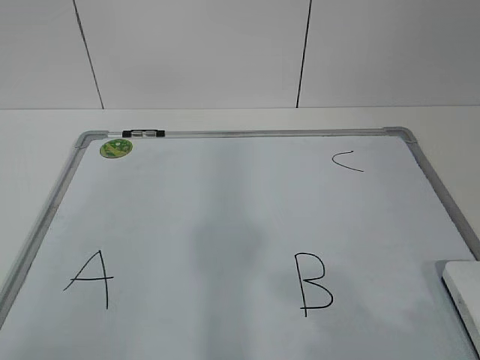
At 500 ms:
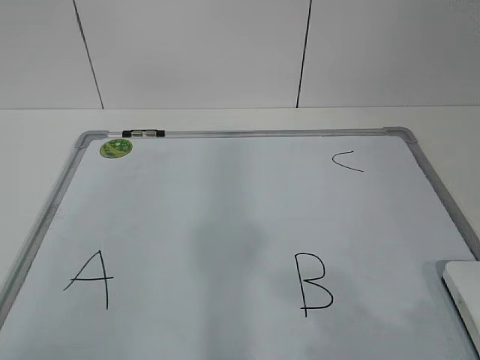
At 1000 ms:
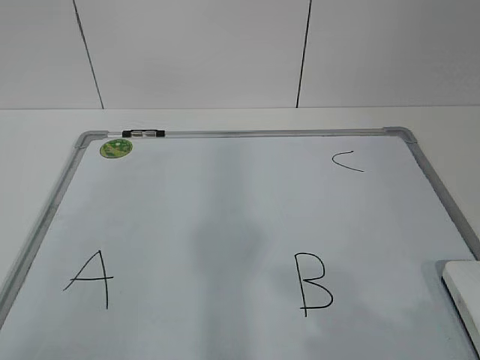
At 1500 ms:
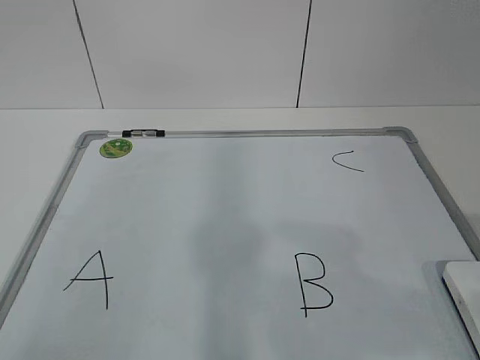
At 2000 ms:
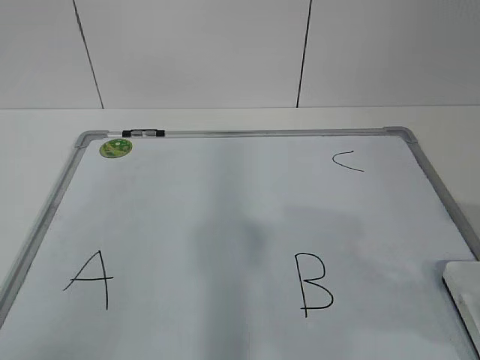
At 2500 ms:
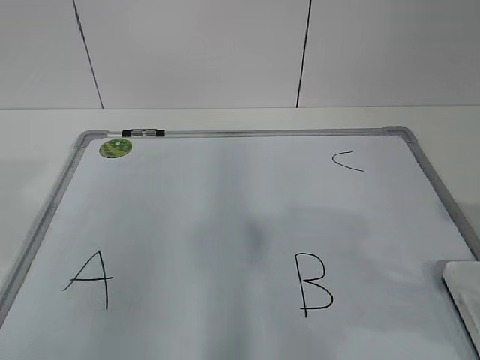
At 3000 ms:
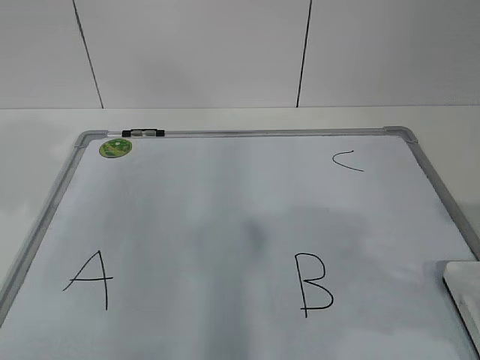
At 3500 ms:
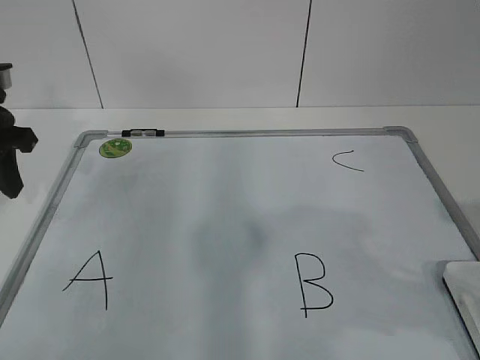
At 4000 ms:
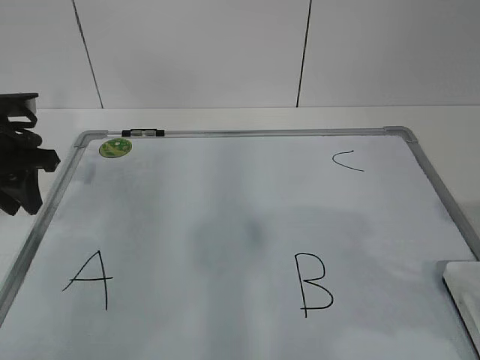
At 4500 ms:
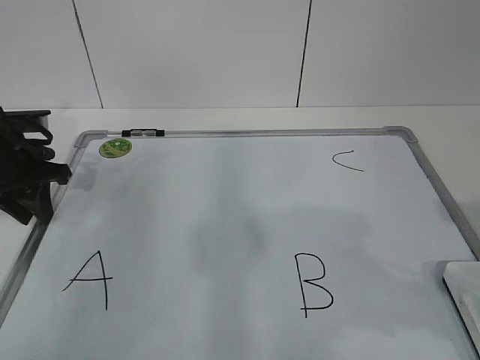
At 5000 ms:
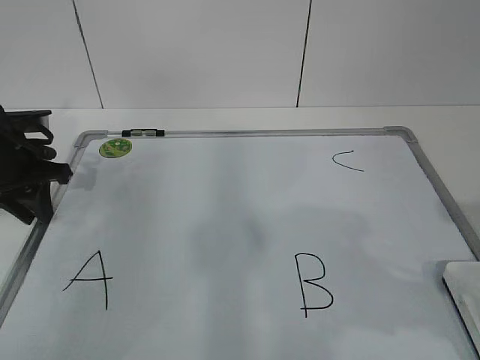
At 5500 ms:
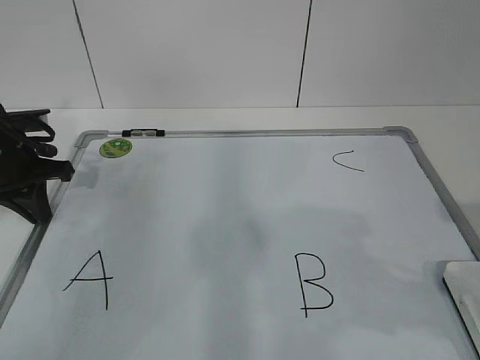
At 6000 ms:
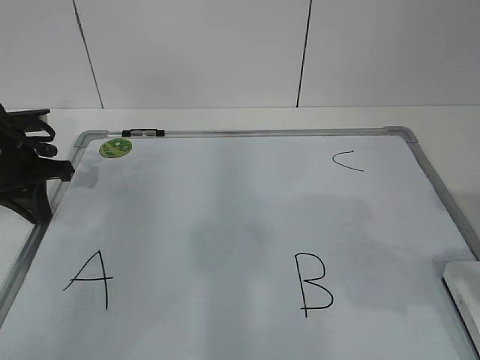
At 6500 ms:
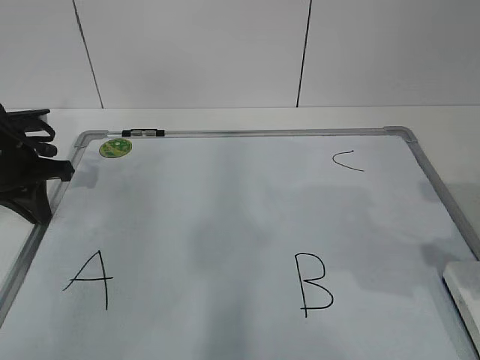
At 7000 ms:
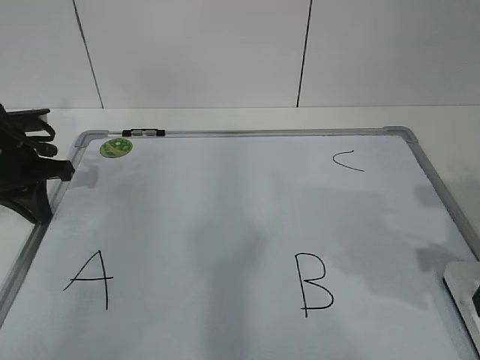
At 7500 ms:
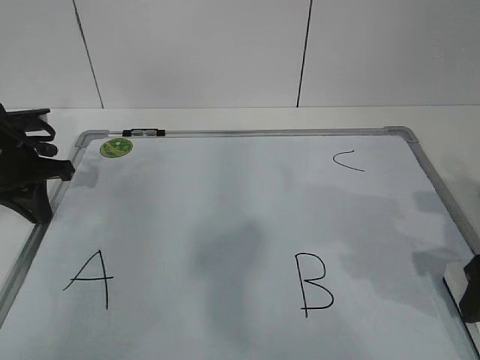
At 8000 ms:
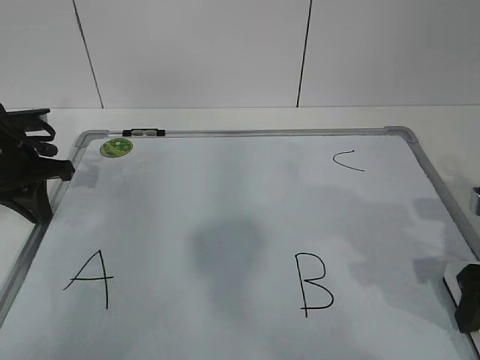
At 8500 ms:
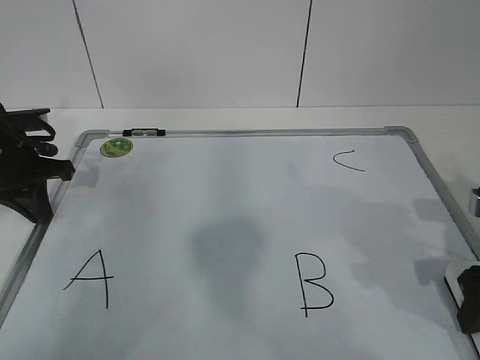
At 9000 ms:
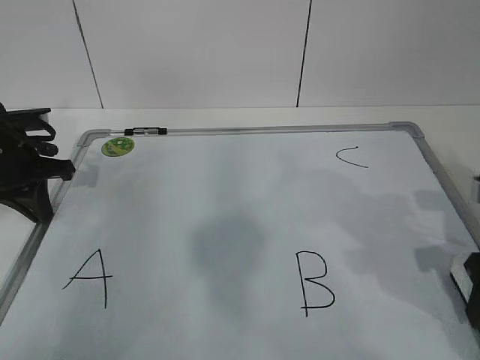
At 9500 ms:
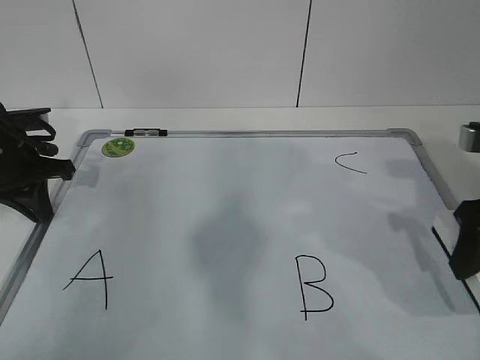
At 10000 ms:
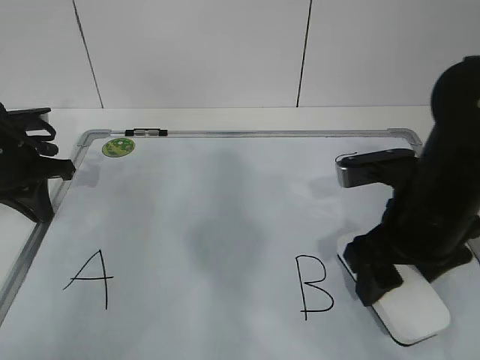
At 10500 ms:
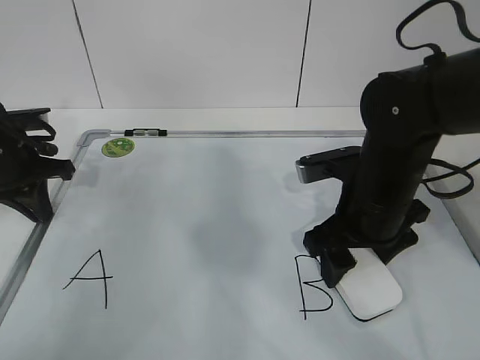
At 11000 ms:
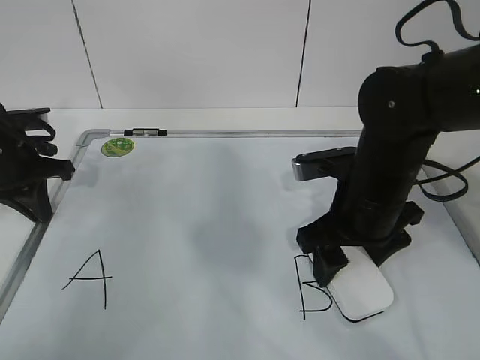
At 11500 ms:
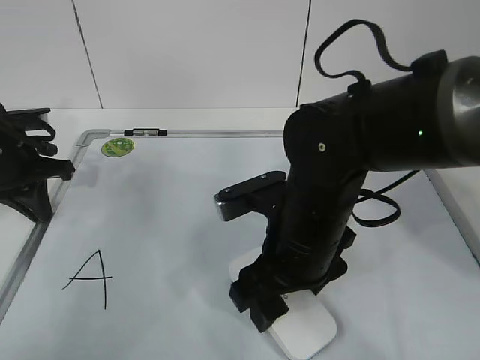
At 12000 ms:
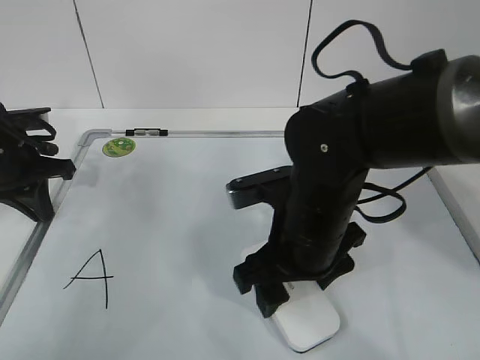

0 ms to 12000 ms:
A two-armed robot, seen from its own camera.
Task of the whole recording: pick up the eraser on the blackboard and erase the letter "B".
Step, 0 ms to 4000 ms: Hold the drawing board steady with your left hand.
2000 ms to 4000 ms: The left gripper shifts roughly 35 cm forward.
4000 ms to 6000 ms: The left gripper closes its fingers.
6000 ms to 8000 ms: The right gripper moves downward and forward, approximately 10 cm.
8000 ms to 10000 ms: The right gripper is displaced to the left by approximately 10 cm.
10000 ms to 12000 ms: The right gripper shifts about 10 cm to the left.

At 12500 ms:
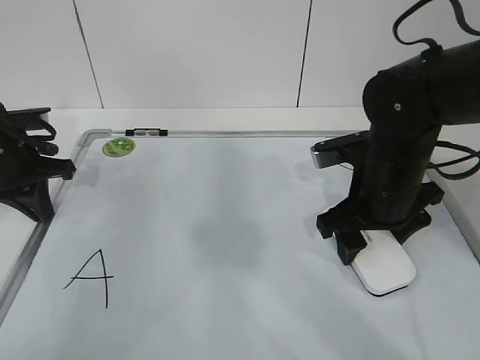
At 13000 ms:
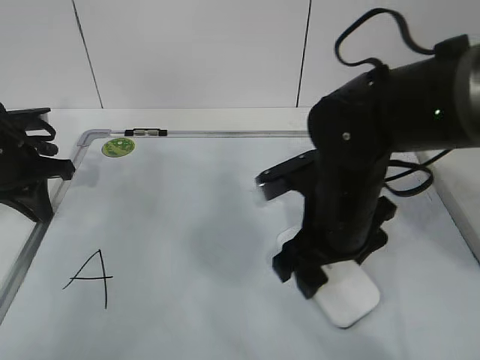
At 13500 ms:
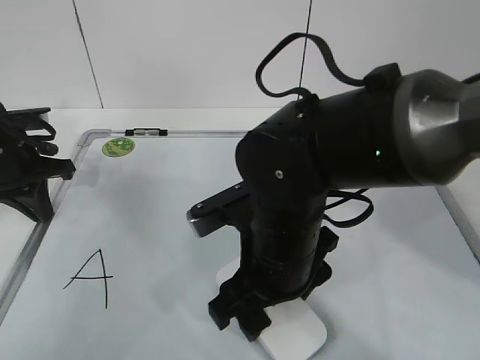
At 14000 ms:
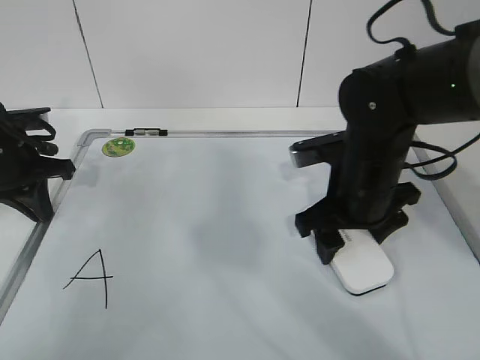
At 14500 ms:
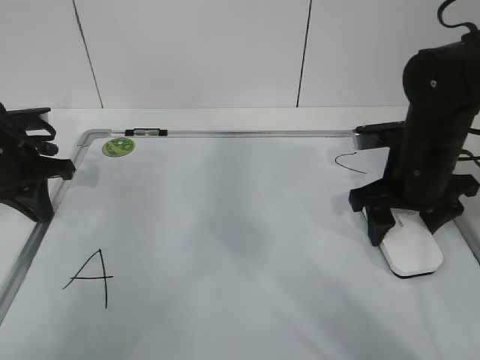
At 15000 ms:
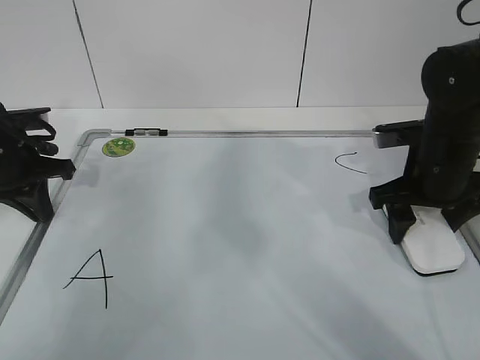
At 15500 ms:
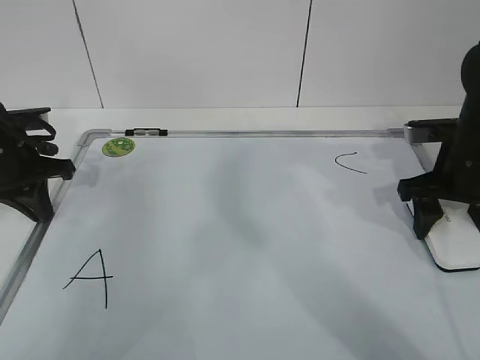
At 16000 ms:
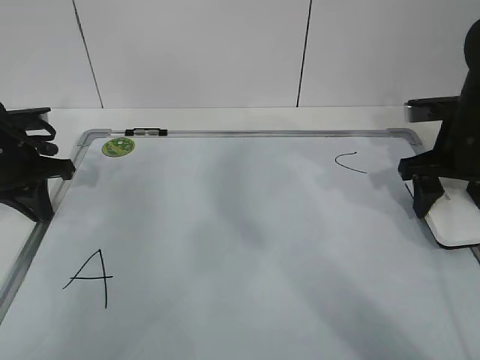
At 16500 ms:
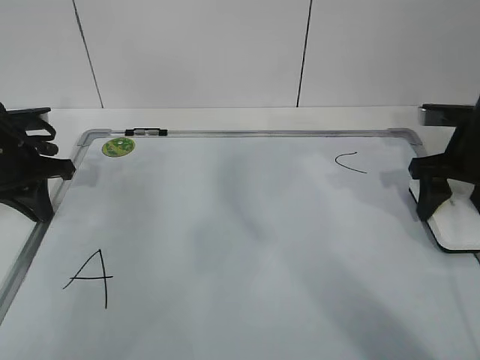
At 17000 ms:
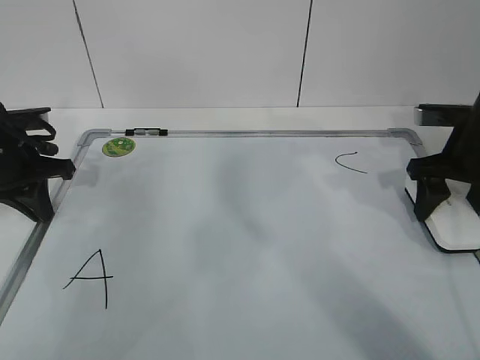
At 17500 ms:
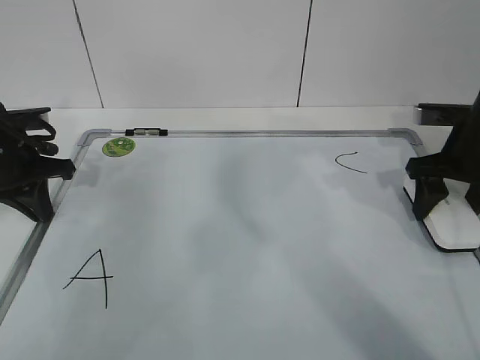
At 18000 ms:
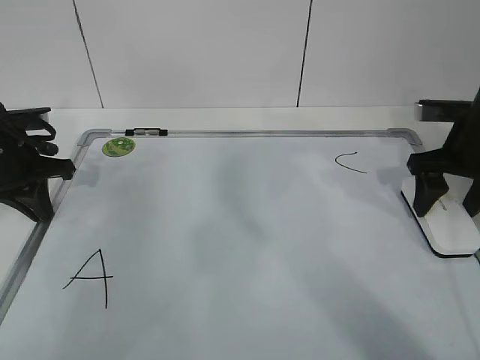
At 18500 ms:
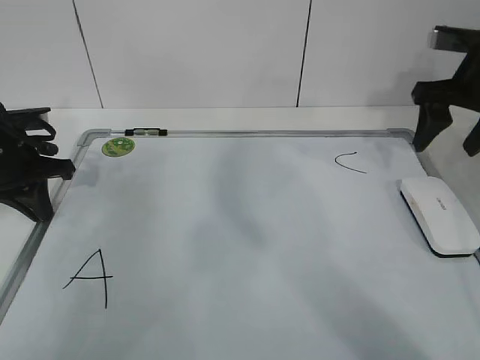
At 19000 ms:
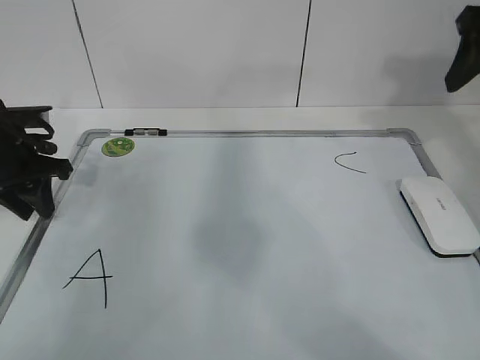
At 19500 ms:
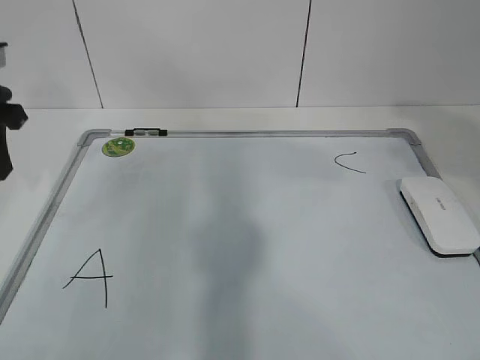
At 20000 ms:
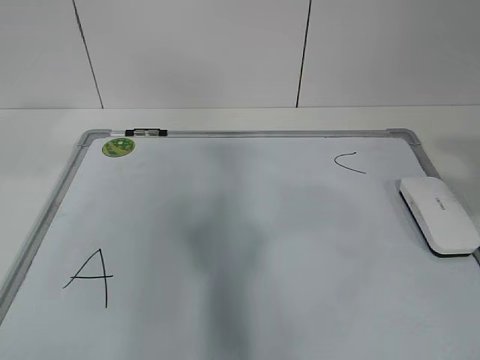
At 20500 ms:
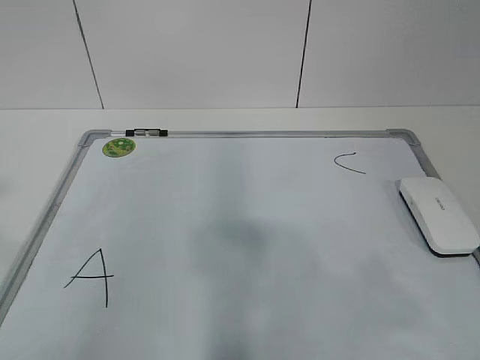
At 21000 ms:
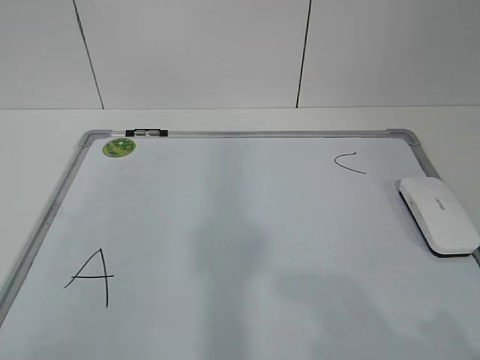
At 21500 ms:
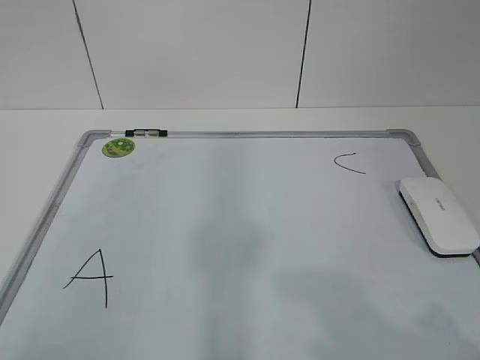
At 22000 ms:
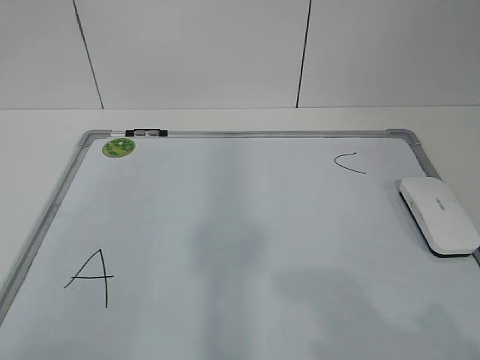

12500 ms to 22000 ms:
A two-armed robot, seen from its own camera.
Task of the whole recording: pick up the eraser on the blackboard and erase the letter "B".
Step, 13000 ms to 14500 ms: Put down the eraser with your right hand.
12500 ms to 14500 ms: The right gripper reaches roughly 10 cm to the left, then returns.
14500 ms to 16500 ms: The right gripper shifts approximately 10 cm to the right.
16500 ms to 18000 ms: Neither gripper changes place.
18000 ms to 20000 ms: The right gripper moves backward and upward, approximately 35 cm, while the left gripper shifts some 25 cm upward and backward, and opens its fingers.
20000 ms to 22000 ms: The right gripper travels downward and backward by some 15 cm; the left gripper travels backward by roughly 25 cm.

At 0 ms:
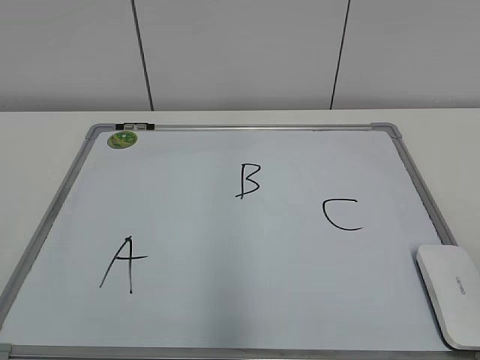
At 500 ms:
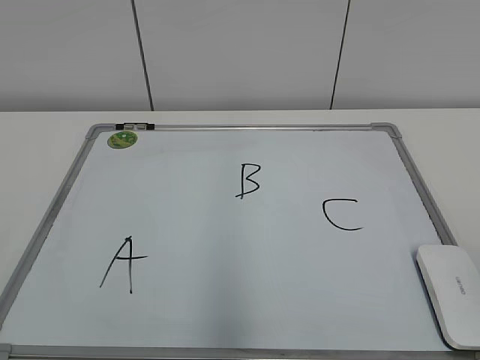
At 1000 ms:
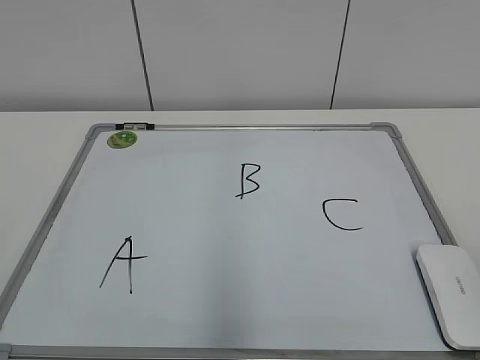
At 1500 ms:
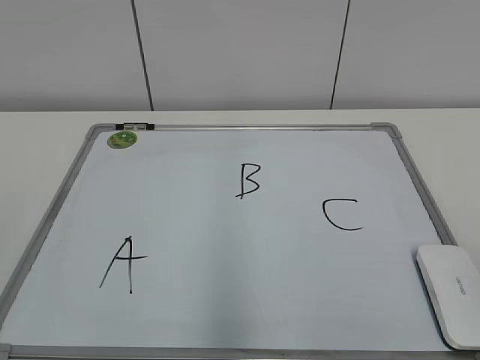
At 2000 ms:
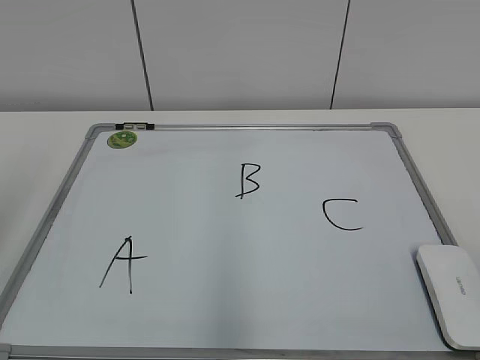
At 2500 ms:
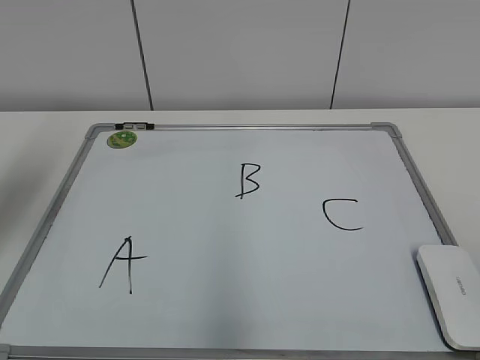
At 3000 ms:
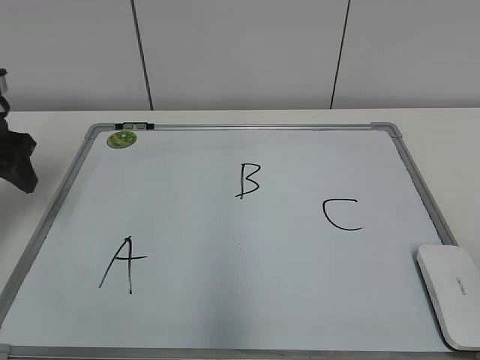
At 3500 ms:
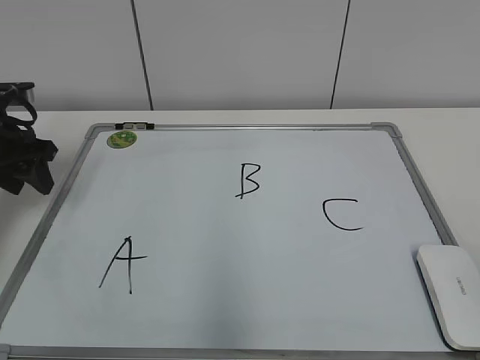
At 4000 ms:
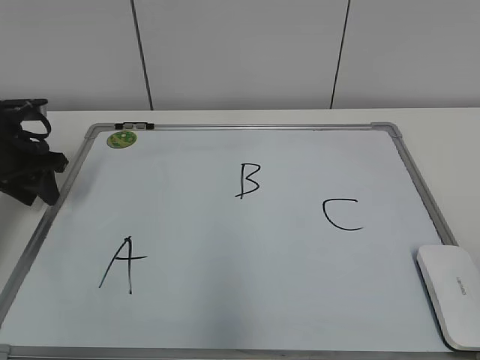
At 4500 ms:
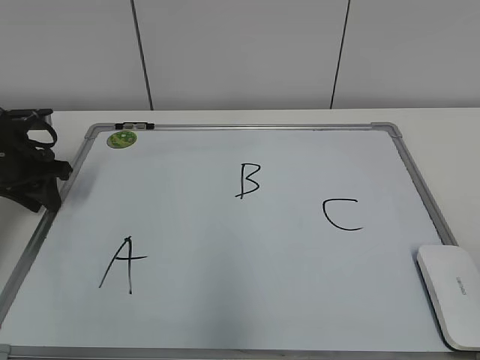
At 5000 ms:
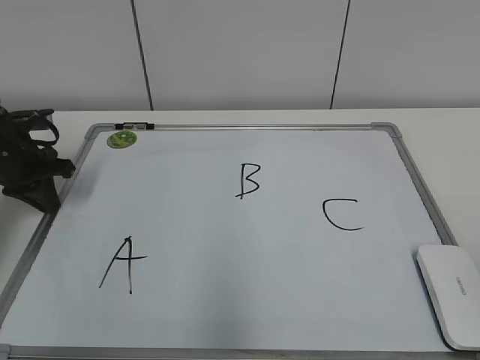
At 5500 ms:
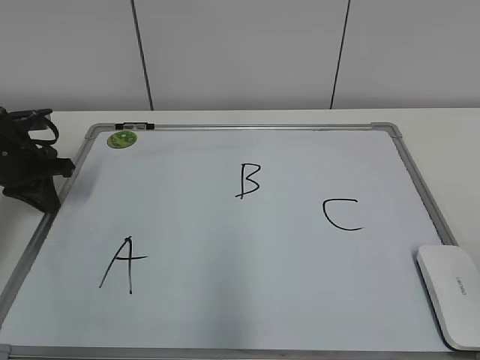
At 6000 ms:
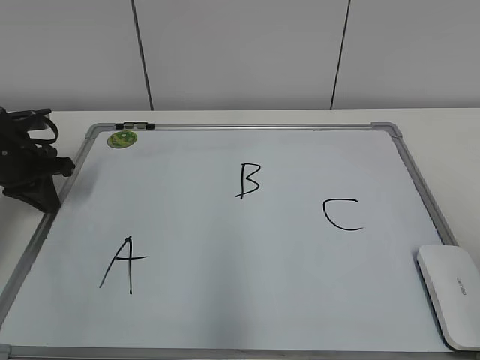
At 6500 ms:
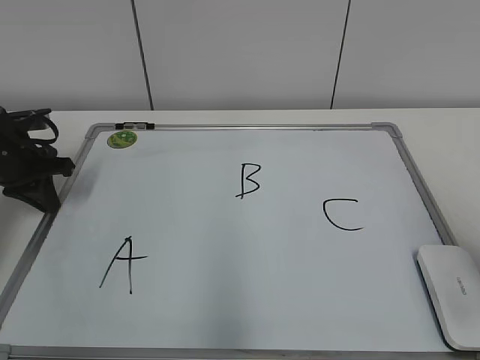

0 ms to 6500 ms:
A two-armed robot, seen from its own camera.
Task of the whole recording: pick up the eraser on the blackboard and erase the letter "B".
Step, 0 ms to 5500 ms: Hold the drawing board steady with your left hand.
2000 ms to 4500 ms: The left gripper shifts some 35 cm forward and downward, and closes up.
4500 ms to 6500 ms: The right gripper is displaced forward by approximately 15 cm.
